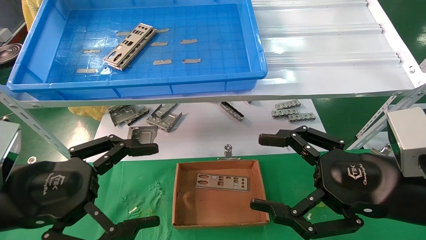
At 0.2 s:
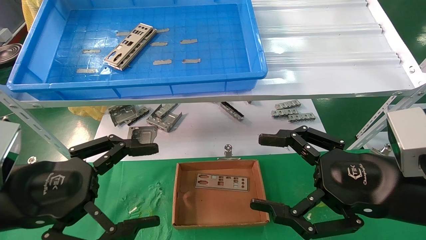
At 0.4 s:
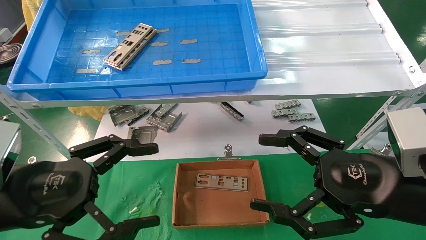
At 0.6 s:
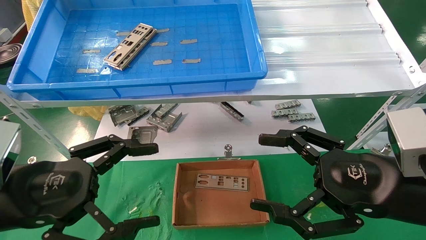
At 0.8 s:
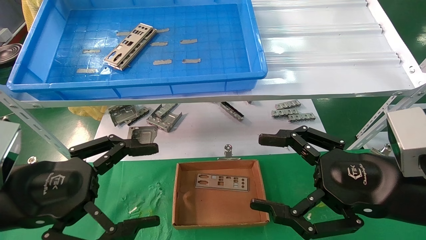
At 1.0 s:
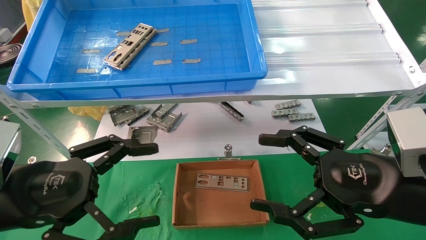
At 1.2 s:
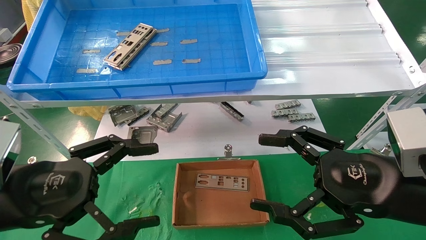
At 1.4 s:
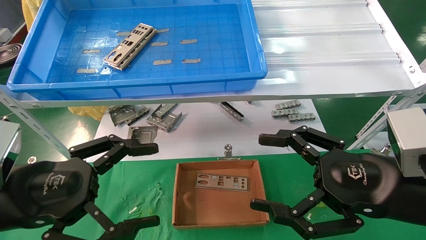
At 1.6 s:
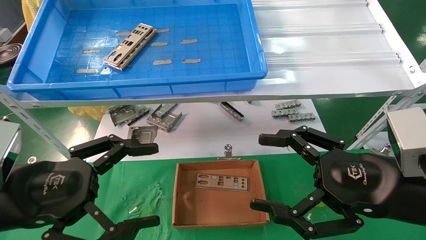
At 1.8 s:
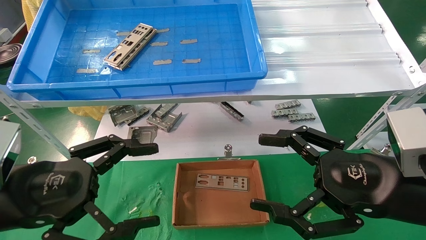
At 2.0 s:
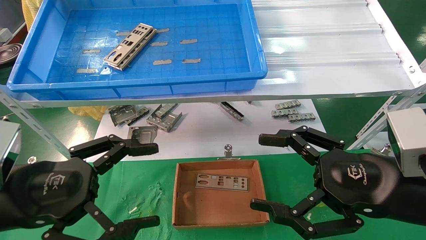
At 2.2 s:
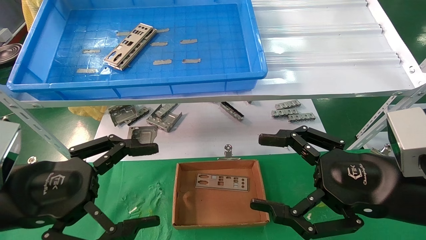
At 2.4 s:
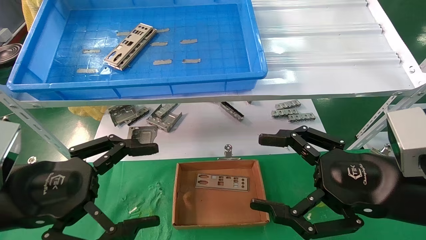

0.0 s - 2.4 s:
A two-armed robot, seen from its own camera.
Task of the whole recording: pick up the parts on the tray and put them in the cardboard box.
0.0 s - 2.4 s: Neither gripper changes place.
